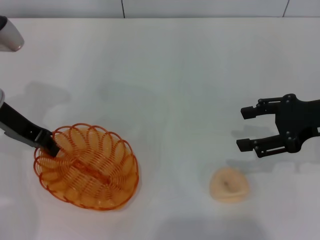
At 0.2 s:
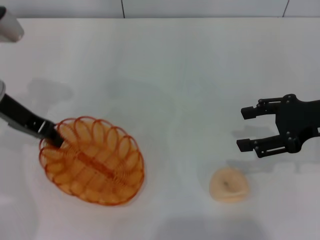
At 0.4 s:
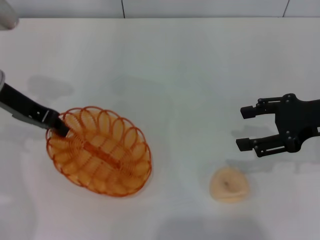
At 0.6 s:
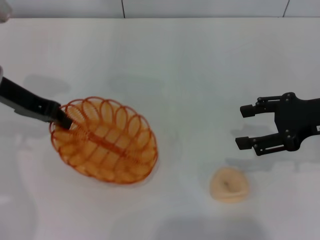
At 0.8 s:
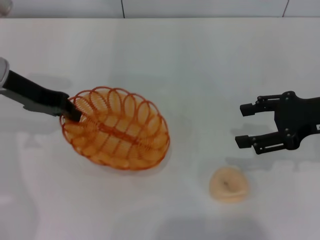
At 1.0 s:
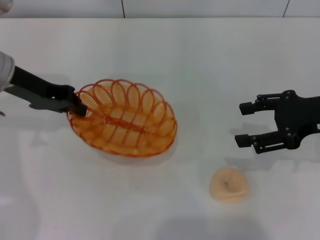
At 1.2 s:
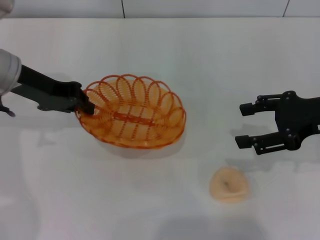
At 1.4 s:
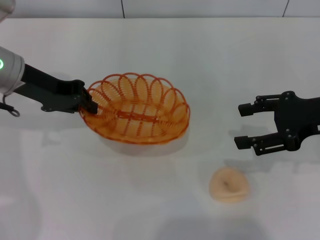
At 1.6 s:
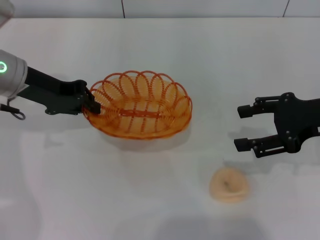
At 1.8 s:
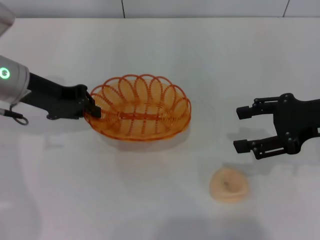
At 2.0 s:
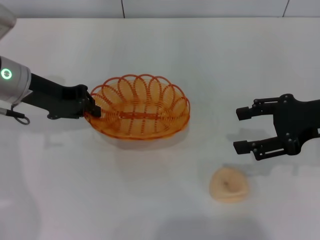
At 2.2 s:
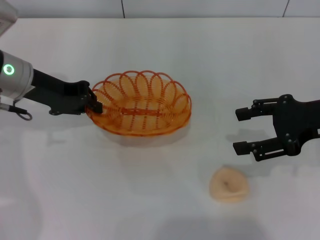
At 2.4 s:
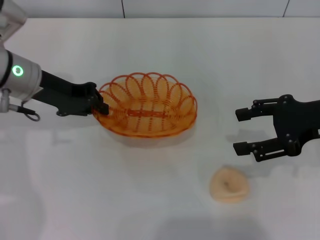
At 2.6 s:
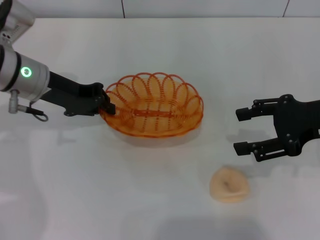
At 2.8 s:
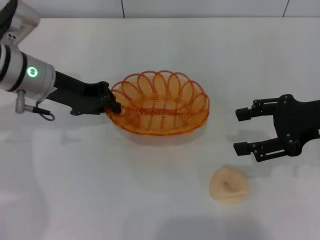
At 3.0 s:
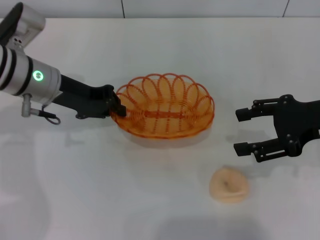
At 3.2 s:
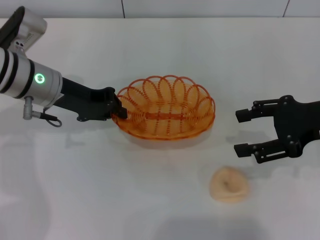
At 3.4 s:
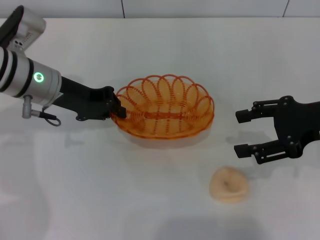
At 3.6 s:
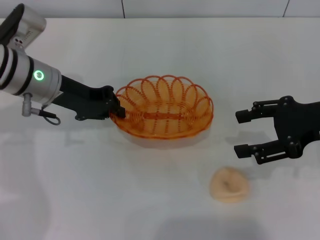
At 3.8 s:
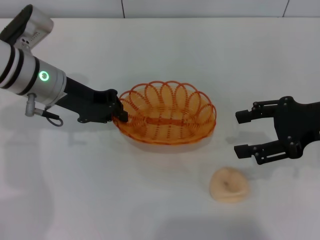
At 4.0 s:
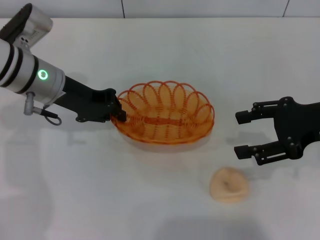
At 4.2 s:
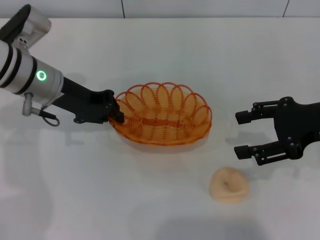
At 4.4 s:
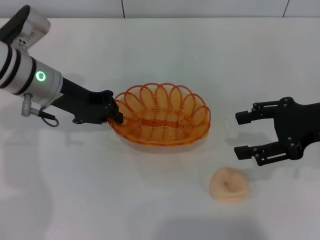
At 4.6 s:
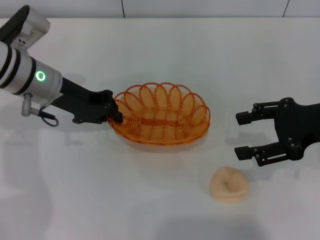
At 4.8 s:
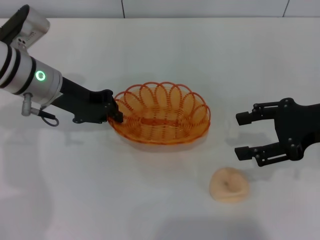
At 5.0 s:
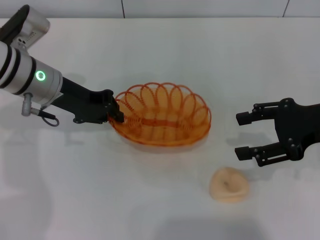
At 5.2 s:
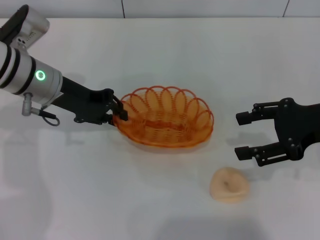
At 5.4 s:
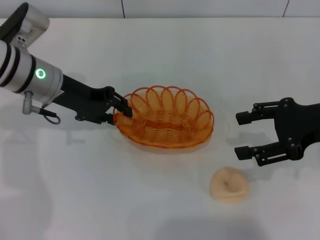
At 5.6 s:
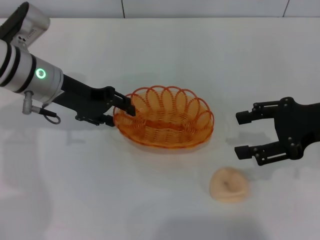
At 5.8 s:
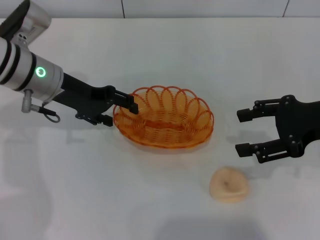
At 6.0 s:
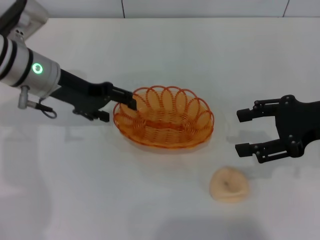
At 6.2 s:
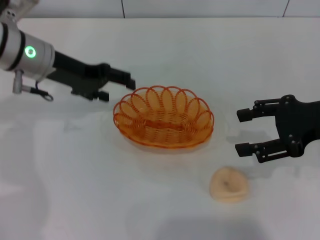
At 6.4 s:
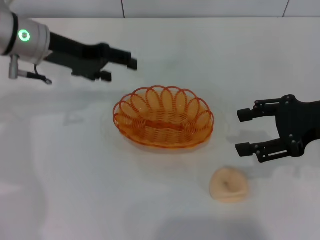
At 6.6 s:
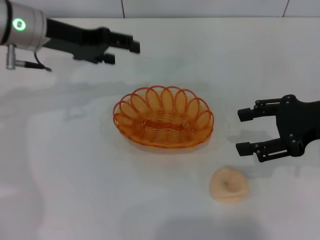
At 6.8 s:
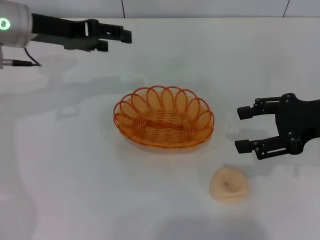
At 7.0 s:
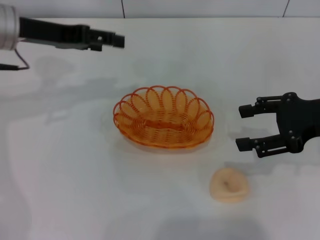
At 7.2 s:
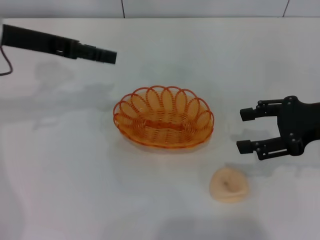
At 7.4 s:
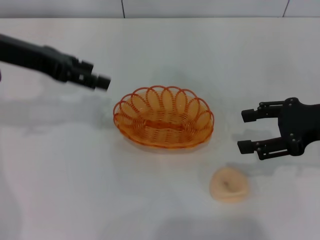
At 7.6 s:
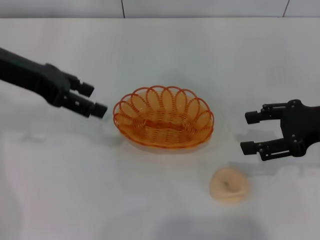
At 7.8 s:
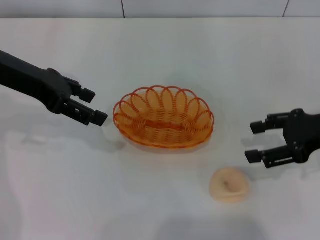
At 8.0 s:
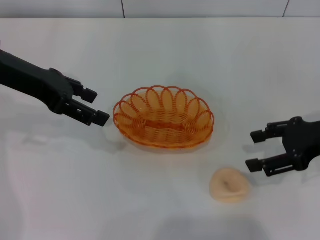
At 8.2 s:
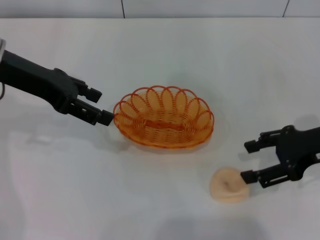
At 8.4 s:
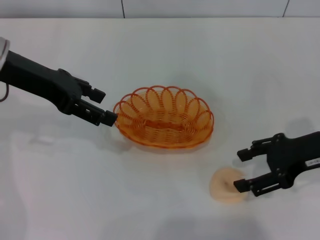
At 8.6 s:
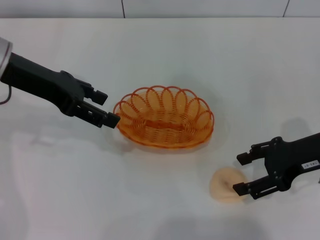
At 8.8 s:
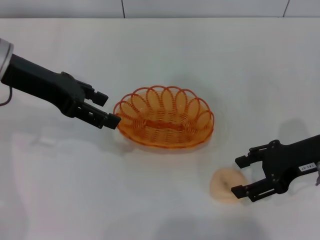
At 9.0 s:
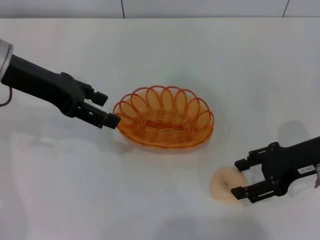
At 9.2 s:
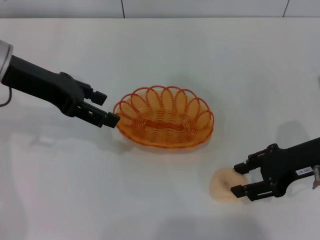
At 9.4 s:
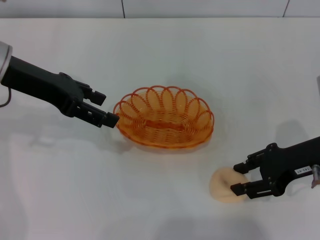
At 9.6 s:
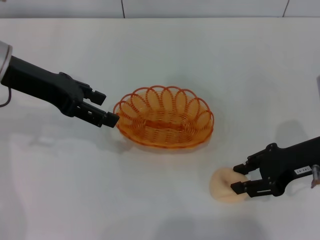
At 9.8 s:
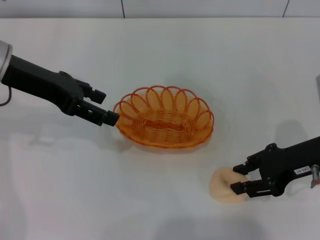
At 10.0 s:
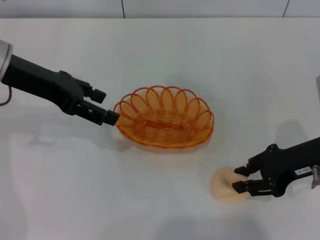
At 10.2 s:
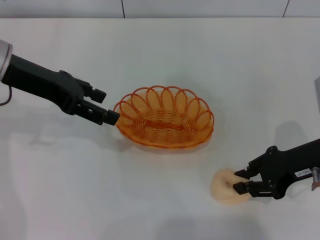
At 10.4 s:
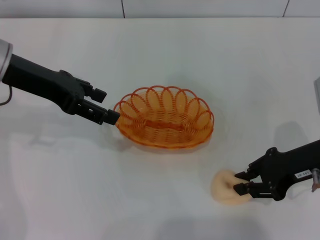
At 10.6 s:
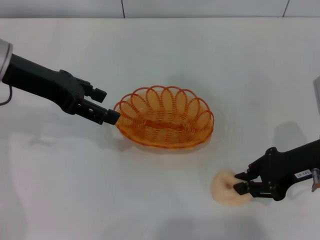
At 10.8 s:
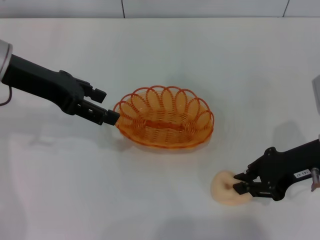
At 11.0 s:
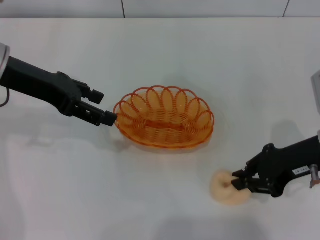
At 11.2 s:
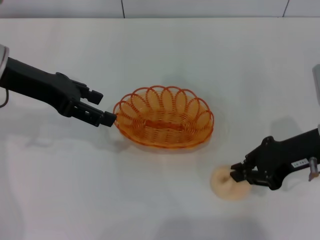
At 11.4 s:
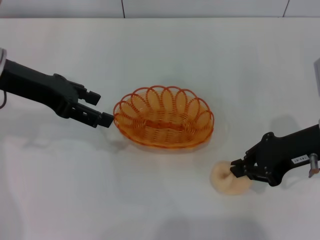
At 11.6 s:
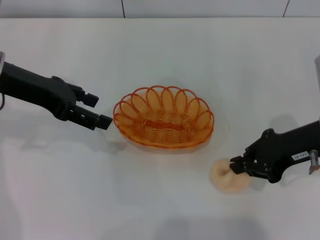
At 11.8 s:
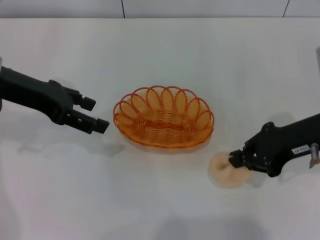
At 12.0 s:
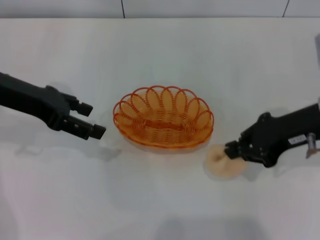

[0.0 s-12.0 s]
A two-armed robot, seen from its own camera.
Step, 1.2 to 6.4 s: Place the basket in the center of view with the left gripper.
1.6 to 3.0 s: The grippers make only small movements.
3.0 to 4.4 s: Neither gripper changes place.
4.4 to 6.0 s: The left gripper opens up.
6.0 to 7.6 s: The left gripper is displaced upward by approximately 10 cm.
7.6 to 9.0 s: The grippers stay close to where they were, moving slightly.
9.0 to 10.4 s: The right gripper closes.
10.4 to 12.0 s: The right gripper travels upward by some 5 cm.

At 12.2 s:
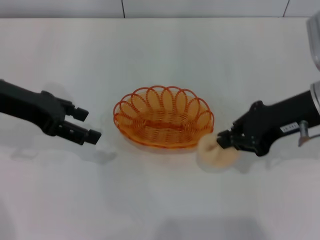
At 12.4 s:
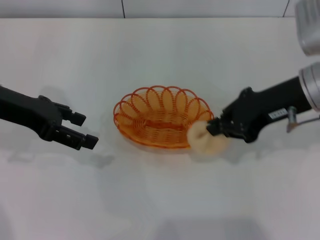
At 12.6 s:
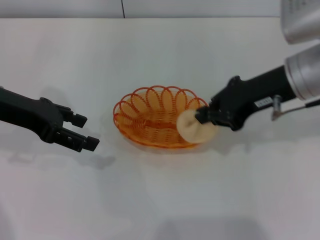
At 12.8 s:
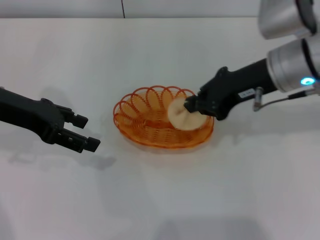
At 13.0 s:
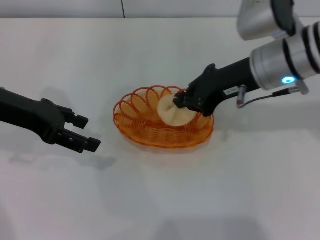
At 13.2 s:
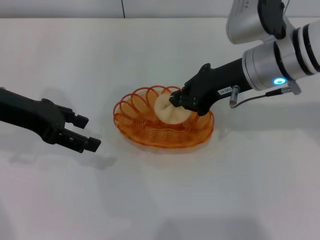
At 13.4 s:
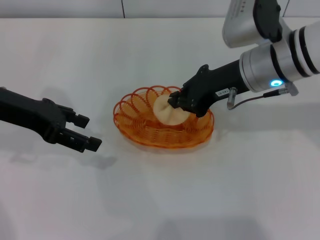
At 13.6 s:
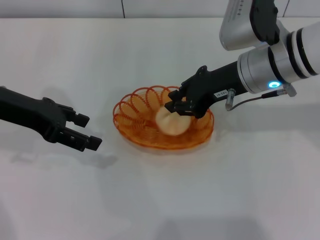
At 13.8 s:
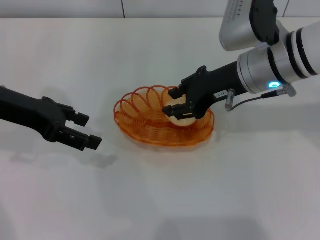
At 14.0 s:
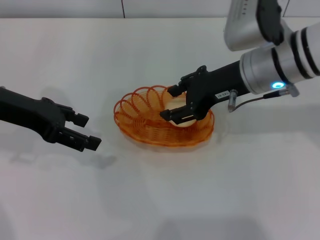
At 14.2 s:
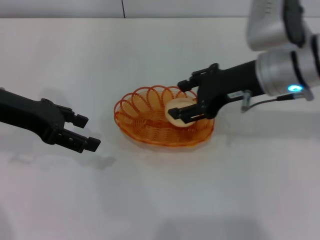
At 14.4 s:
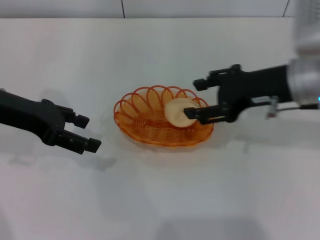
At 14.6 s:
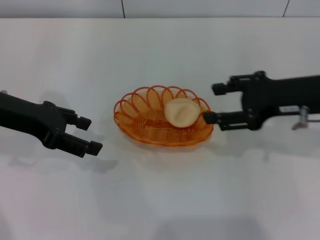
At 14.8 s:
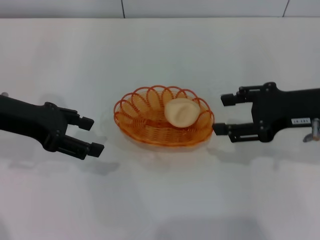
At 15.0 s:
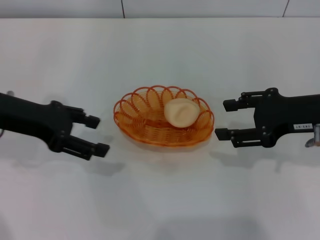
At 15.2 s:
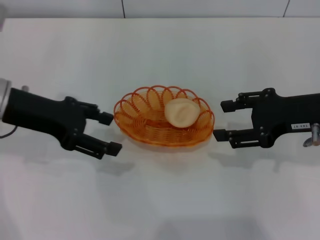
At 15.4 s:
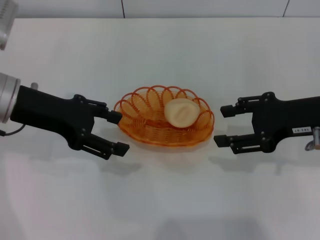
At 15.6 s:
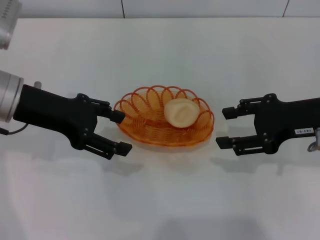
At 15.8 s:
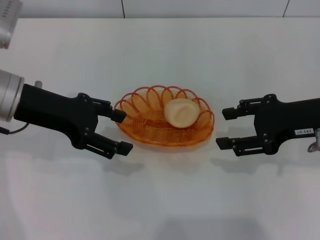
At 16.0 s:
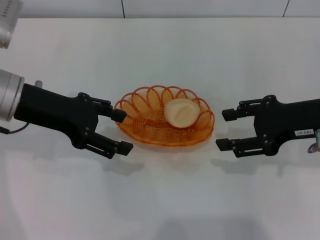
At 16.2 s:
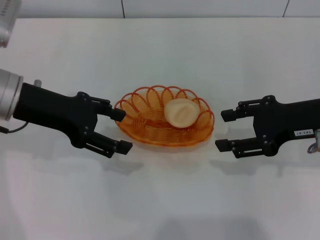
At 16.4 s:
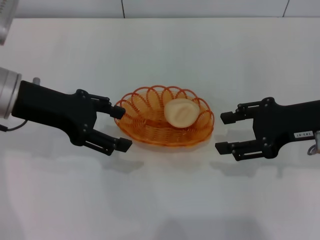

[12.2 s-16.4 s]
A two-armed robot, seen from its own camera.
Step, 12.4 to 14.6 s: Place the egg yolk pastry into the basket with the right gripper.
12.2 to 13.6 s: The right gripper is displaced to the left by some 10 cm.
13.6 to 15.0 s: The right gripper travels to the right and backward by approximately 15 cm, and opens.
15.0 to 16.4 s: The grippers stay close to where they were, moving slightly.
